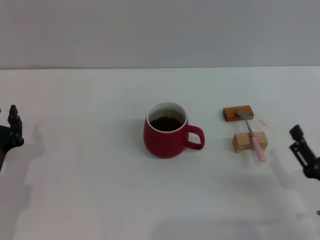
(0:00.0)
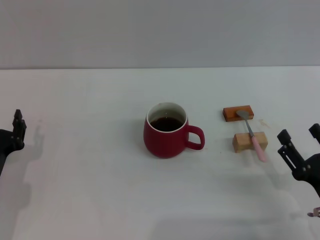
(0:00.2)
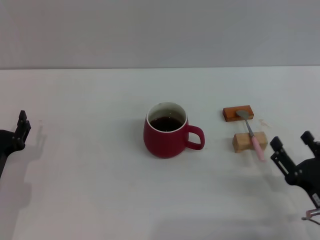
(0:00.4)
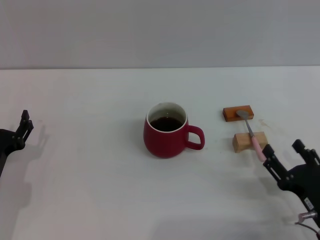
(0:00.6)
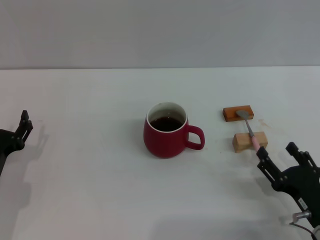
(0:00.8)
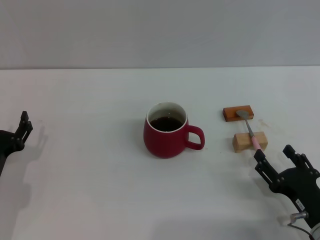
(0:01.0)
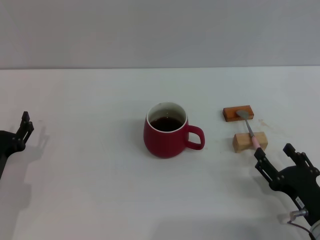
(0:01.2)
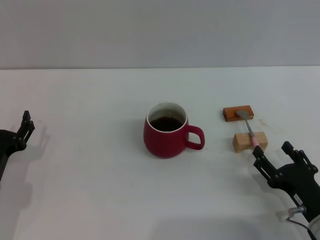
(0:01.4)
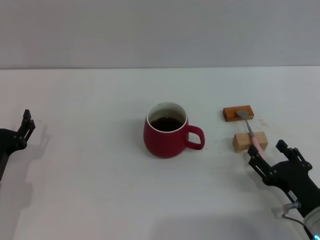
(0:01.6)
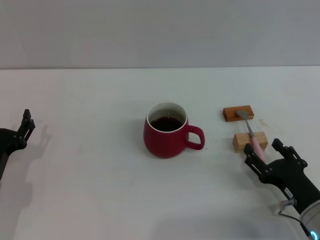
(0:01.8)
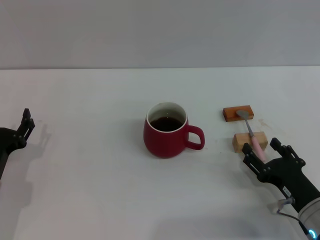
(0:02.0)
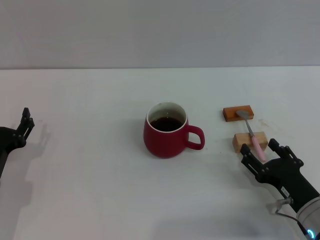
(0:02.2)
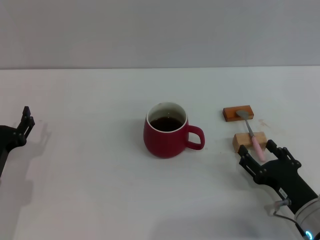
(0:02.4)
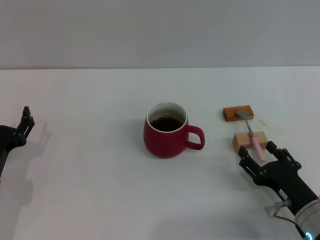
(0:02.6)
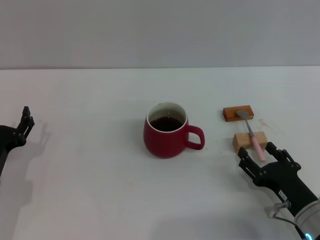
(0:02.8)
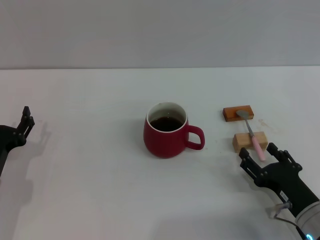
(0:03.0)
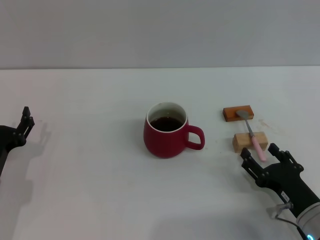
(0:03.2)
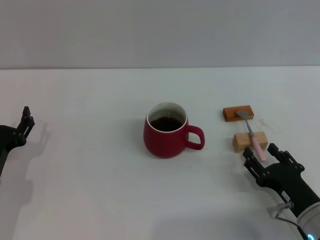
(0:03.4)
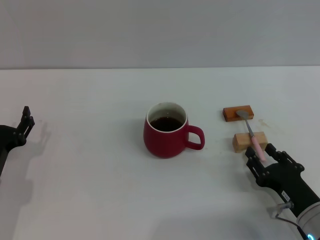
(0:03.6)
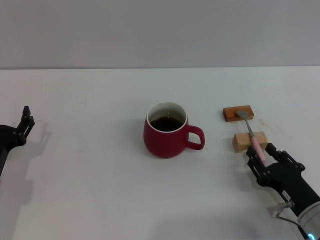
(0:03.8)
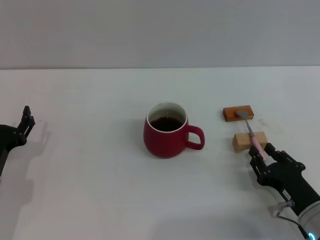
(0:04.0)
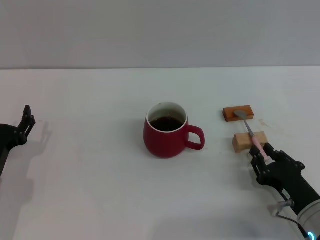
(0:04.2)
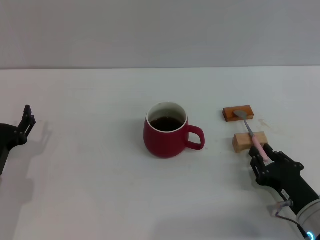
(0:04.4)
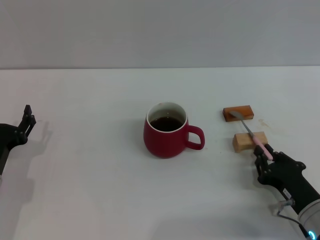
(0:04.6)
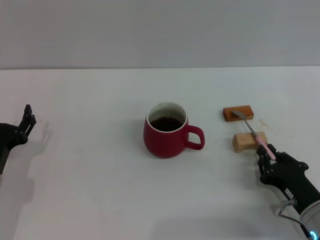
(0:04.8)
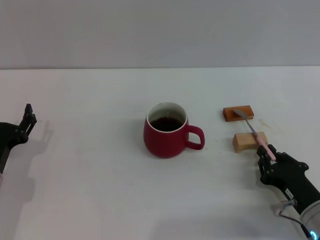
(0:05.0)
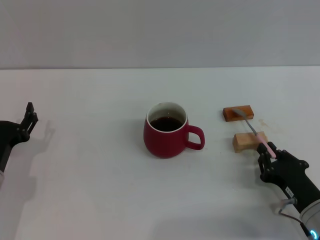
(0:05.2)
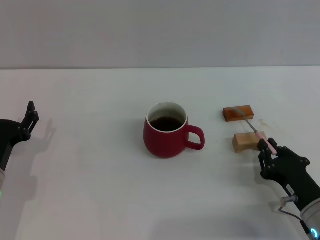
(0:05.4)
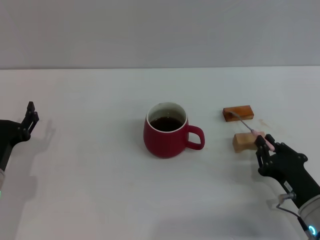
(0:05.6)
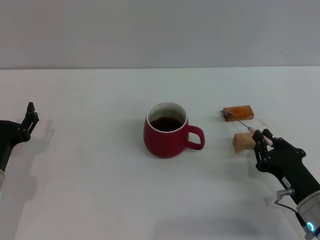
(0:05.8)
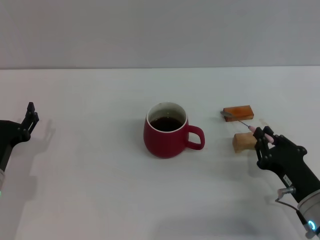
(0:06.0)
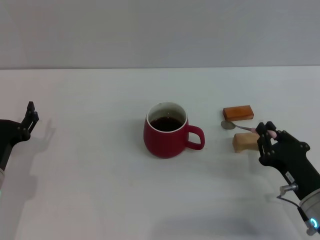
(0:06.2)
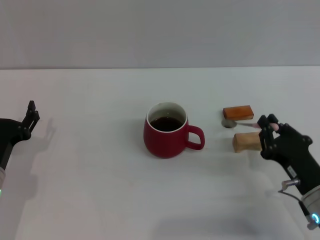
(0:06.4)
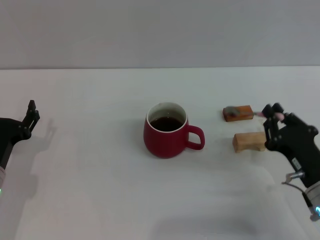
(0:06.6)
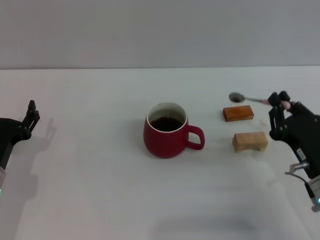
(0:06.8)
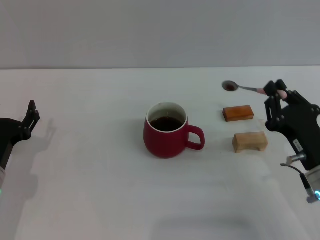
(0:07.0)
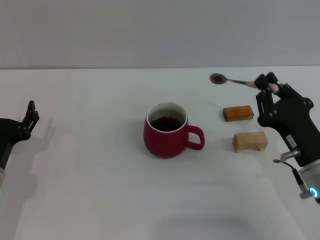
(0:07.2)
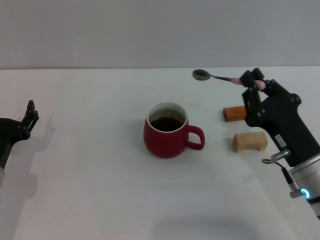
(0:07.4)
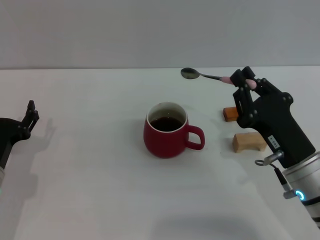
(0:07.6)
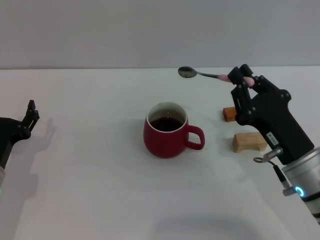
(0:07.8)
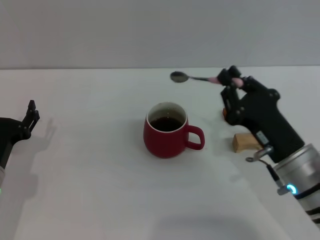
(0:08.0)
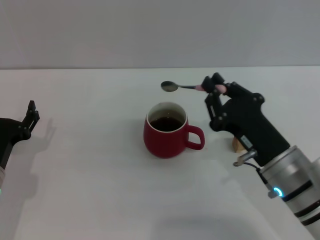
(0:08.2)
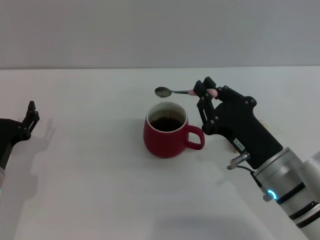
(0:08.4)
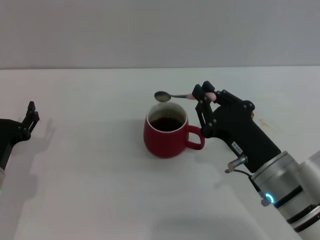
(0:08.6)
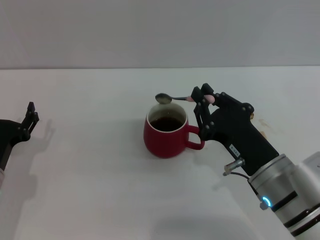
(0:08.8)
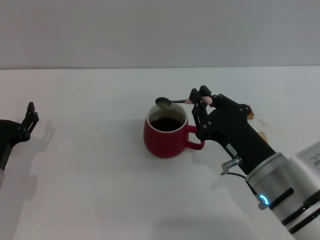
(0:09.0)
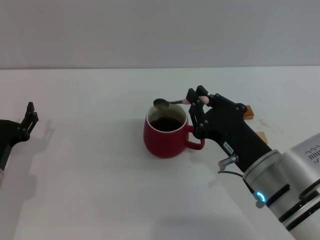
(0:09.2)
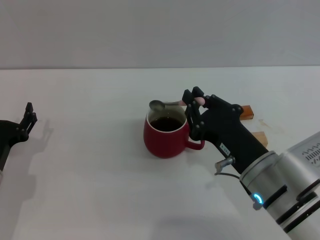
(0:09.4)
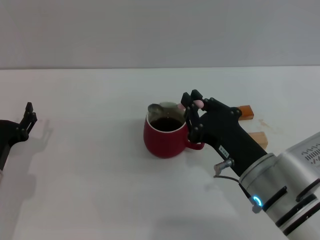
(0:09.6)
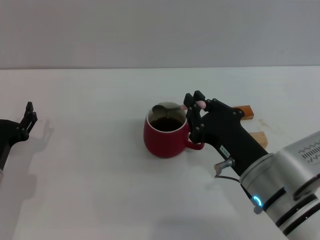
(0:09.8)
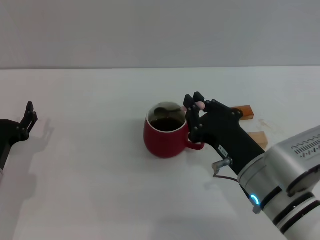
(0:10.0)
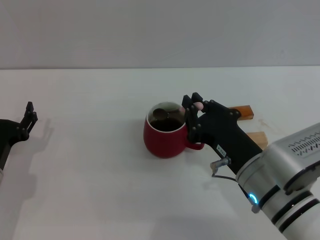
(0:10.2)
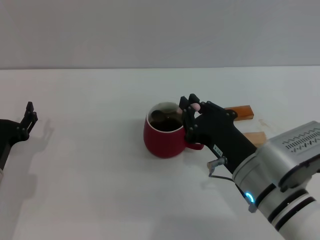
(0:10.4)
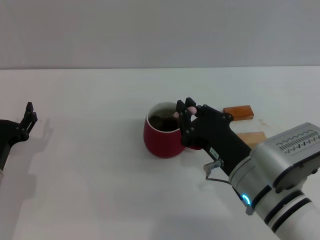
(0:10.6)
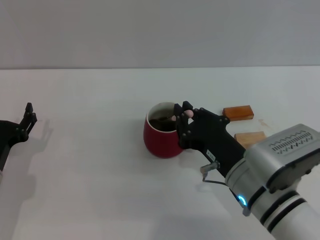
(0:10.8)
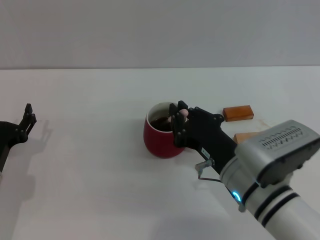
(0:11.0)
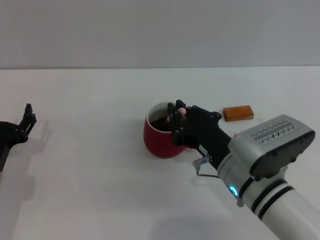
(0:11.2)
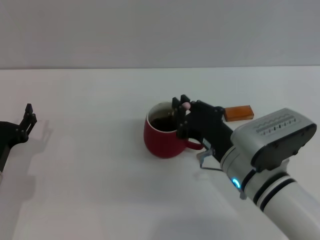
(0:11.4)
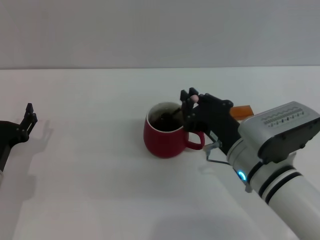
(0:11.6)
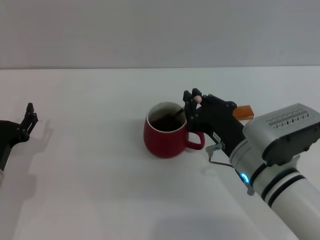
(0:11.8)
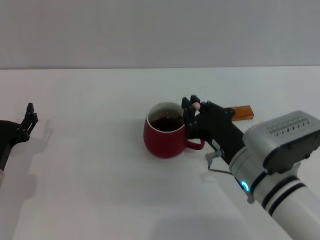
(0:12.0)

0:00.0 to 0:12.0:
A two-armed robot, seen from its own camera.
Task of the whole recording: Move the red cup to the center, lift the pink spoon, stir it three times in the cup, and put the spoon into the cup.
Step, 0:00.0 to 0:07.0: Pick up the spoon with the right gripper.
0:00.0 to 0:01.6: The left gripper opens. The right gripper moves approximately 5 cm.
0:01.6 to 0:03.0: Both grippers stay put.
0:03.0 to 0:04.4: The right gripper closes.
0:04.4 to 0:06.0: The grippers stay close to where they were, moving slightly.
0:06.0 to 0:07.6: The right gripper shifts about 5 cm upward.
0:07.6 to 0:09.0: The grippers move only a little.
0:09.0 to 0:12.0: The grippers stay close to where they were, moving slightly.

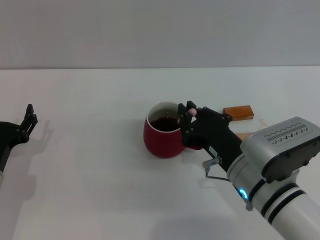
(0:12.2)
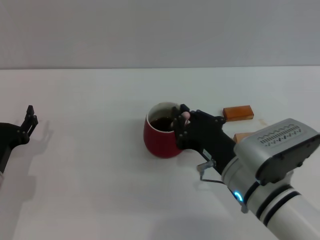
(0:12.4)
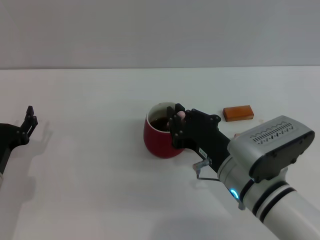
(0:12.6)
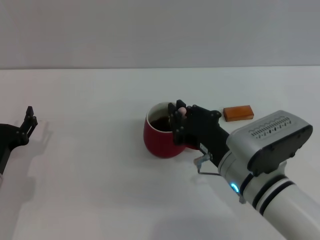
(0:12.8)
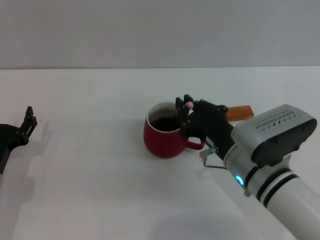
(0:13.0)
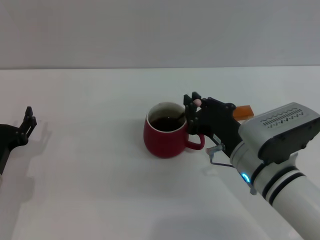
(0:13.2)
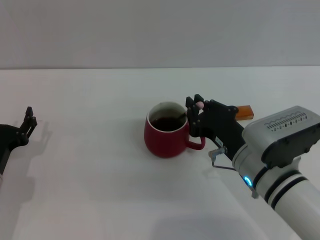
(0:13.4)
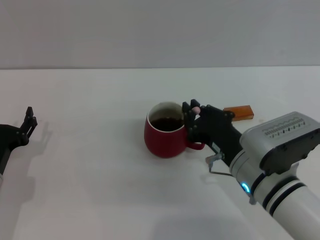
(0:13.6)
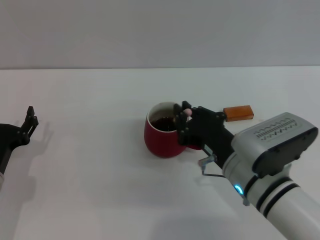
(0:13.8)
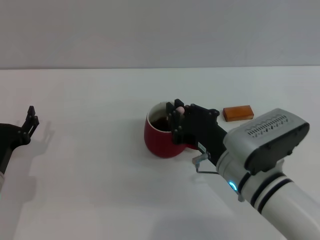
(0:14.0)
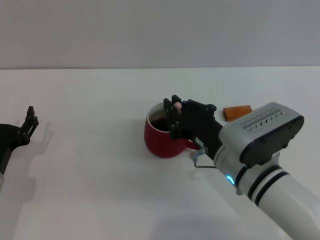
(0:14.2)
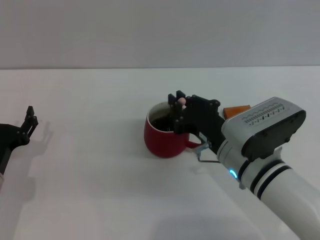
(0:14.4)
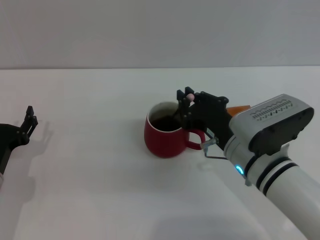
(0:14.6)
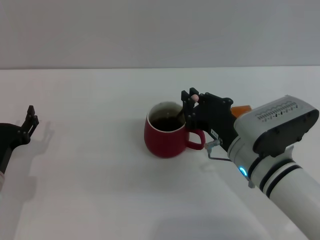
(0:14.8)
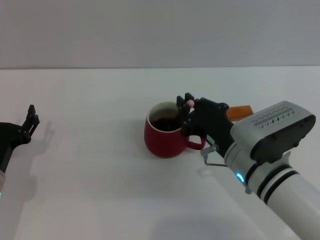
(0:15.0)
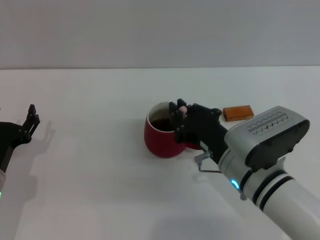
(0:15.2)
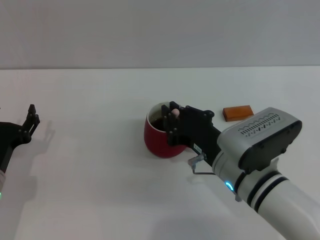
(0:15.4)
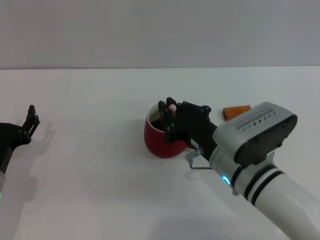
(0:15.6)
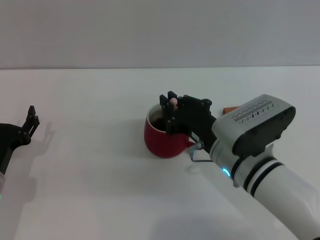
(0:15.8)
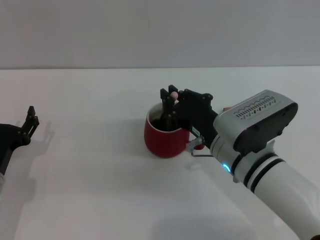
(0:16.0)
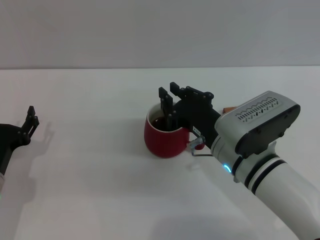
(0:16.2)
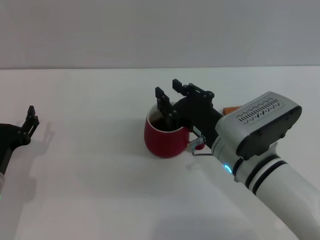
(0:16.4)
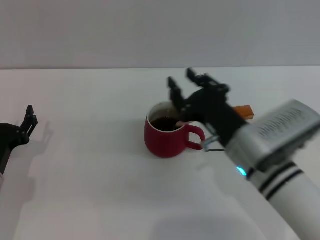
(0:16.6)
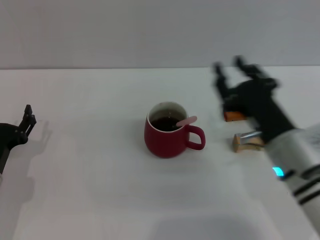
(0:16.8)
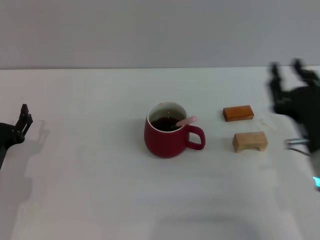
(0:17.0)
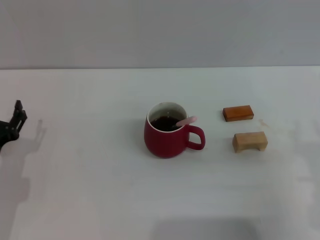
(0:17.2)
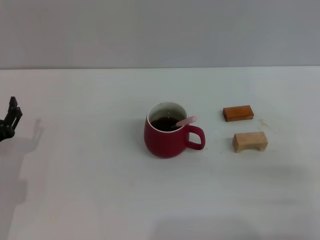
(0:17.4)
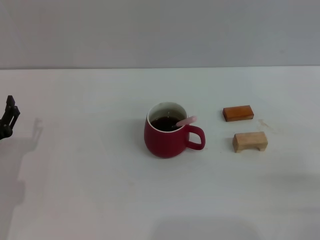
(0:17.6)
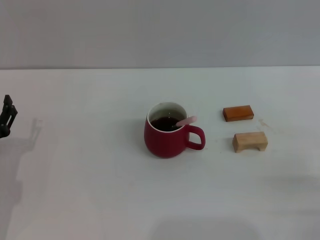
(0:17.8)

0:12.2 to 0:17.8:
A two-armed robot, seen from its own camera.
Task of the whole recording: Move the red cup to the center, lift the pink spoon, stir it three times in the cup, and put the spoon into the cup.
Step, 0:12.2 to 0:16.6: Stir the coffee in the cup with the right gripper.
0:12.2 to 0:16.4: There are only small adjustments of the grippers.
0:16.4 to 0:17.8: The right gripper travels to the right and backward by approximately 25 cm, and opens its fingers.
